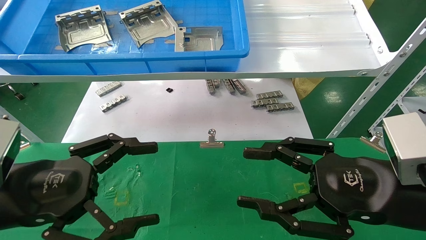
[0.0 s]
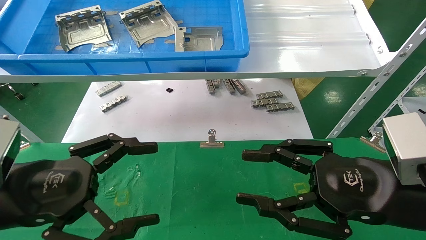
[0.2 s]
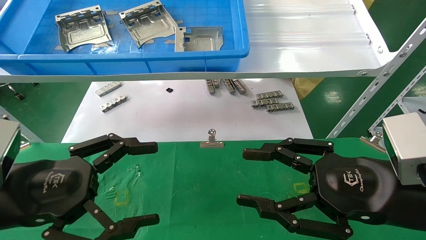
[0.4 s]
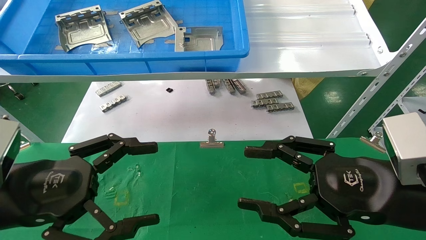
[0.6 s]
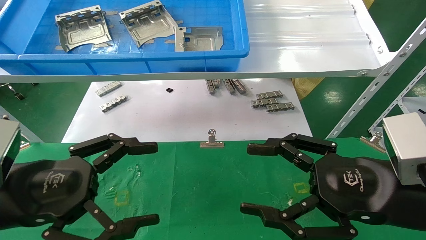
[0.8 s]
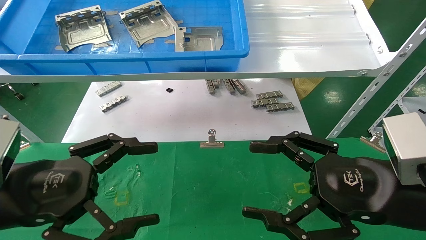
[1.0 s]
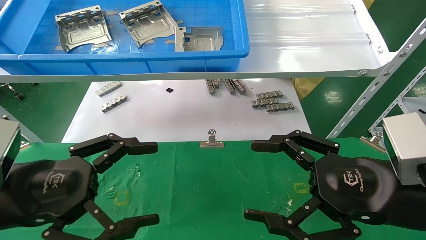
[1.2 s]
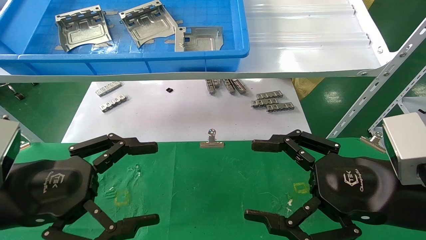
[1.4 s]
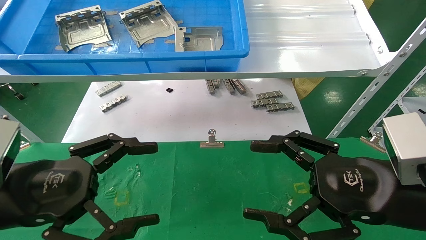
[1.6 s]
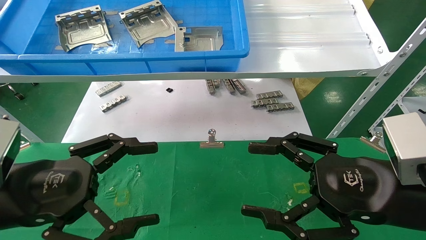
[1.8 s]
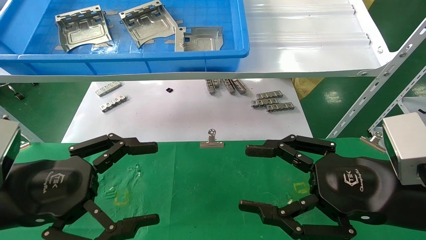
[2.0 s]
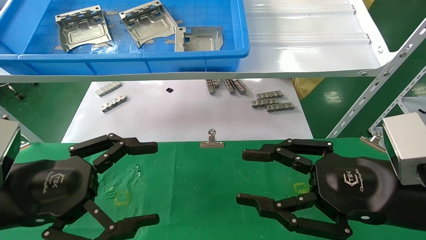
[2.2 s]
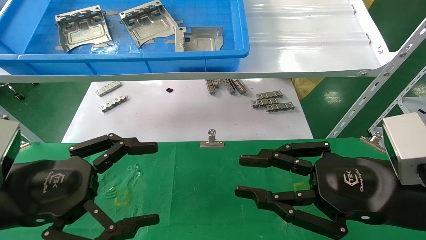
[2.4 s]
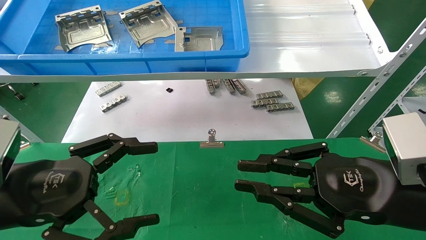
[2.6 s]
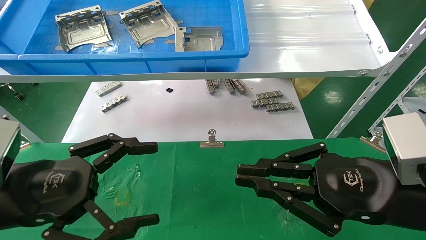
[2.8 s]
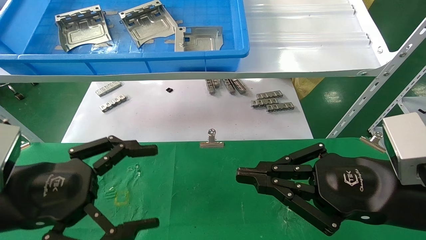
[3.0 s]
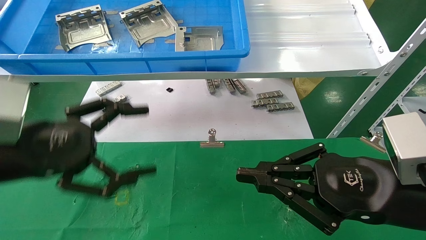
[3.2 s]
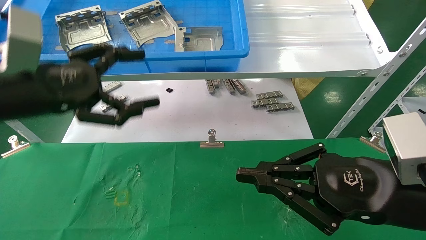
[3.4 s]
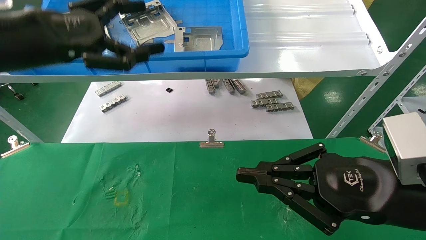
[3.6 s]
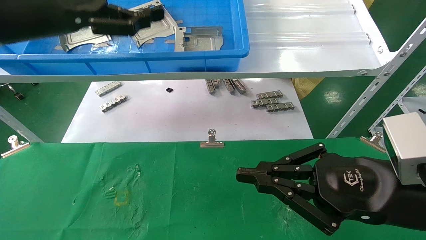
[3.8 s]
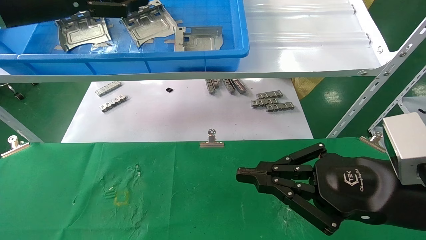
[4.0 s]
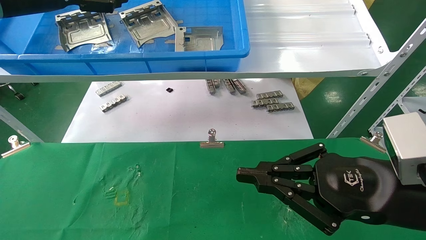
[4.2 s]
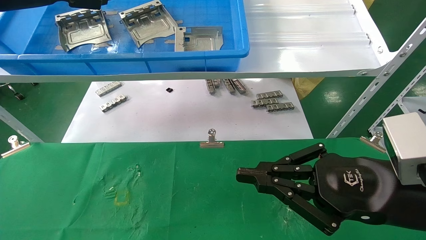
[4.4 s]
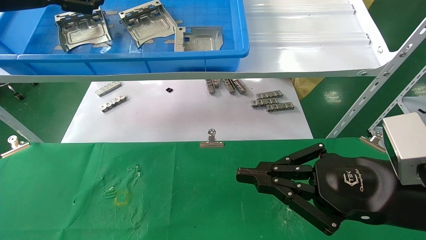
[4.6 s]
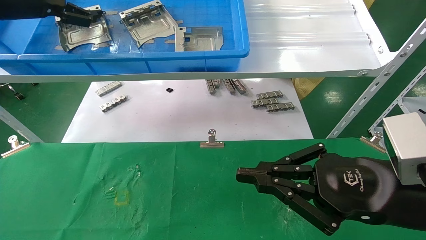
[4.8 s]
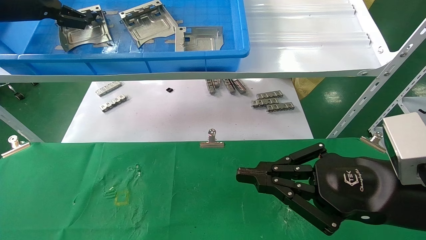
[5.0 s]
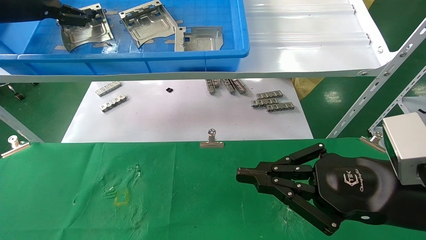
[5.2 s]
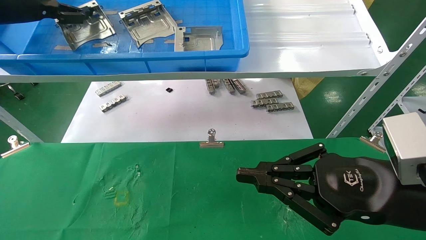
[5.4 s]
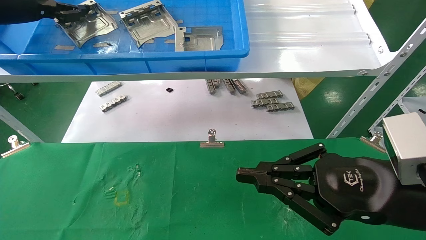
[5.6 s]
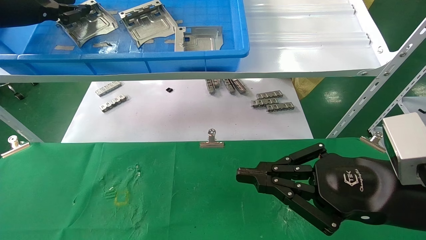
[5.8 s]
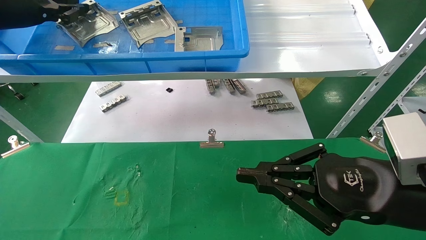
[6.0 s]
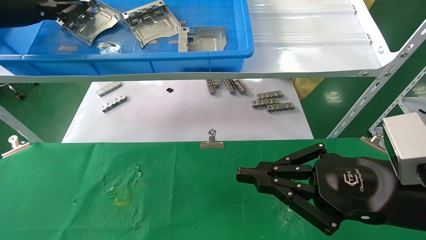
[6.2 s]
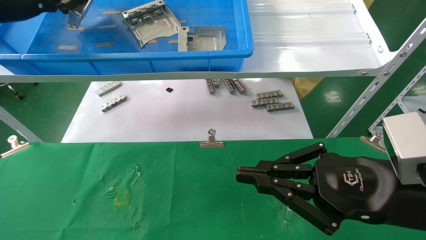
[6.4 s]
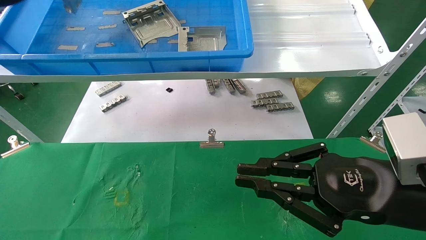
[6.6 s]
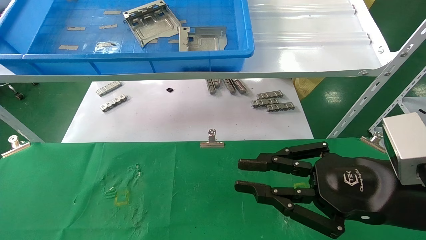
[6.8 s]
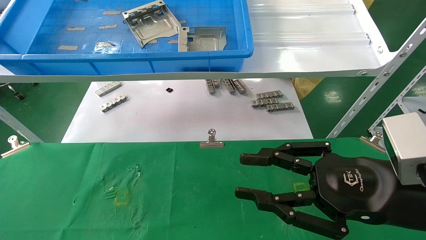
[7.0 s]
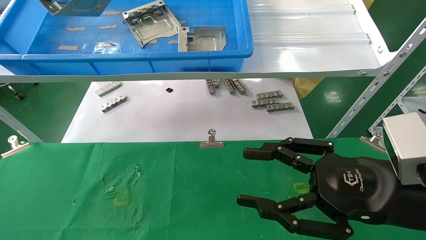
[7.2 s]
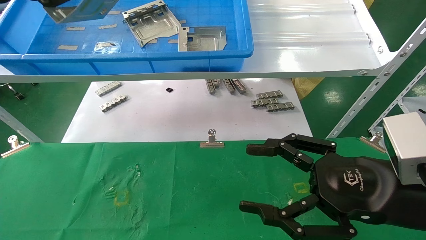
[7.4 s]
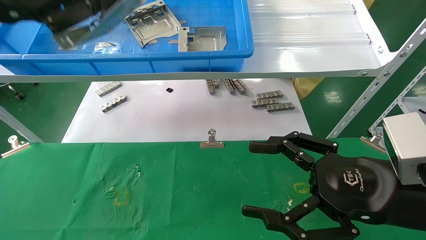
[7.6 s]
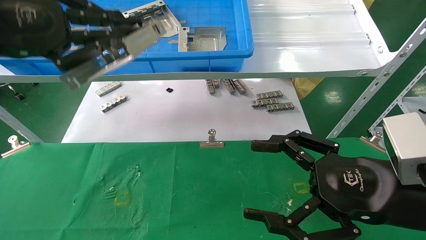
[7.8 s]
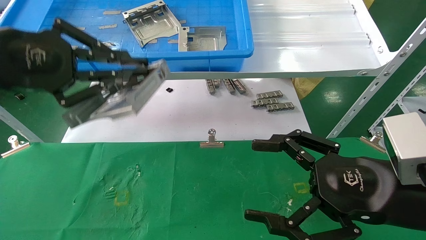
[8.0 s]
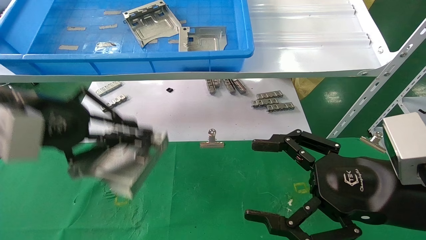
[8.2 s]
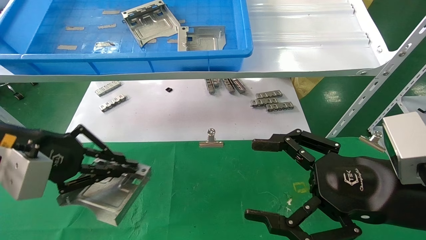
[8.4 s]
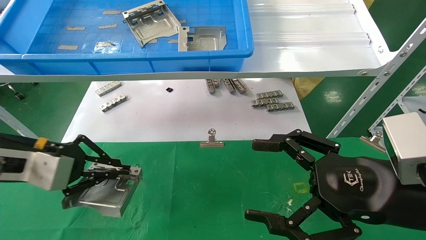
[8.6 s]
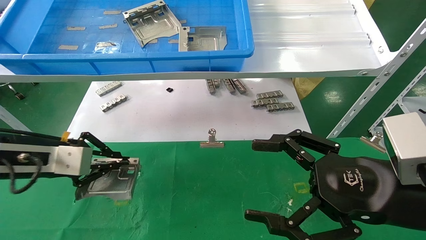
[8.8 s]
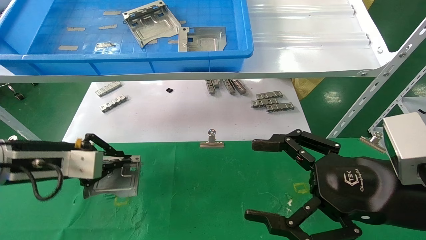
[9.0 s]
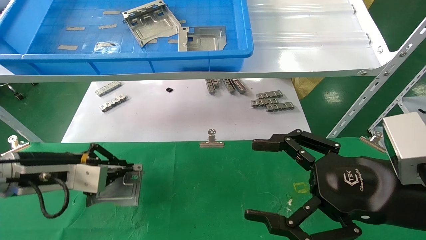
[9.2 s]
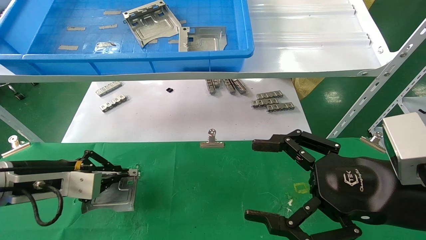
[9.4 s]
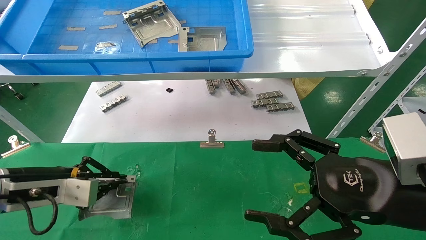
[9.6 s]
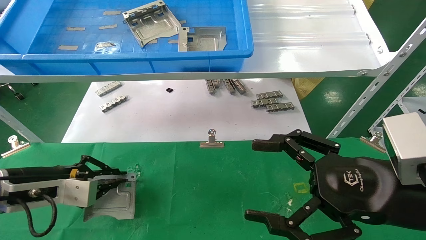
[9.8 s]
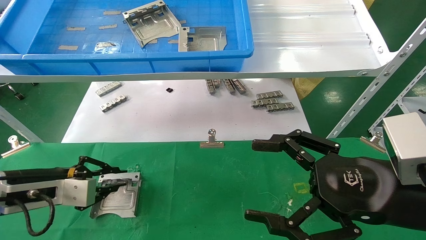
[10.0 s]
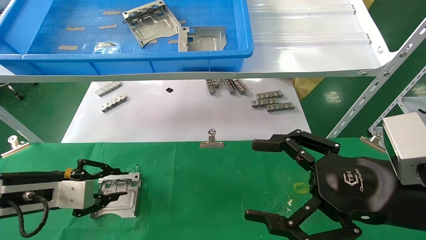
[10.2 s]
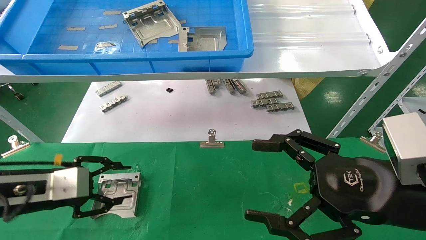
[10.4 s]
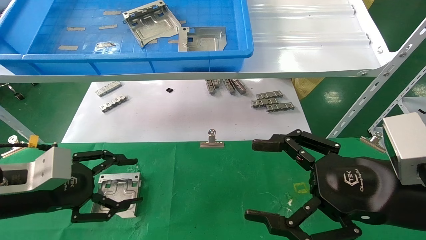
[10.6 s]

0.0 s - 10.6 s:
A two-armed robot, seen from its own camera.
Task of the whole recording: use the mechanical arm to pick up the parts and place them on the table.
Step, 3.2 s - 6.2 s: Pick up the hard drive bracket from the feeding area.
Step, 6.4 s - 10.4 s: Place the hard drive bracket into the box.
0.0 s - 1.6 s: The right gripper opens its fingers.
1.6 s - 3.0 s: The right gripper closes its fingers.
3.0 s - 4.6 s: The left gripper travels upward and forward by about 30 cm.
4.6 s - 6.0 s: The left gripper closes its fingers.
6.0 s - 7.6 s: The right gripper opens up. The left gripper heads backward and to the right, covering roughly 15 cm.
7.6 s - 9.0 s: The left gripper heads downward, covering approximately 25 cm.
9.0 s - 10.6 s: The left gripper changes place by approximately 5 cm, and opens its fingers.

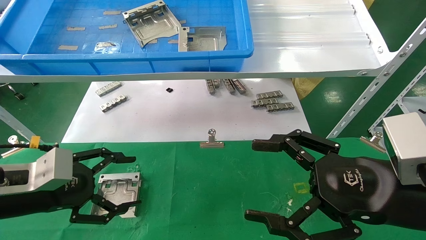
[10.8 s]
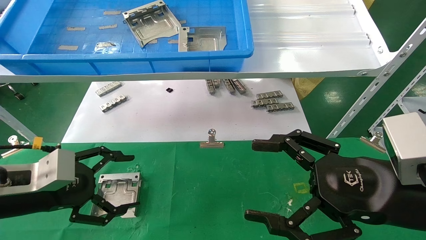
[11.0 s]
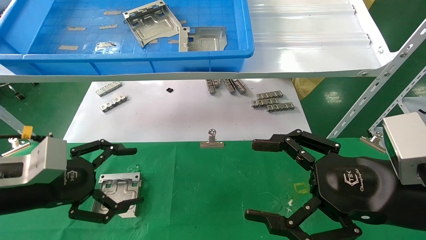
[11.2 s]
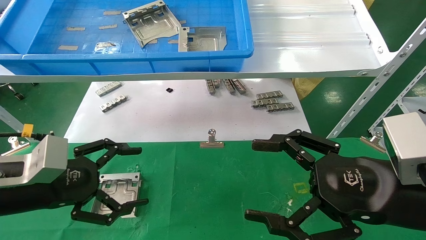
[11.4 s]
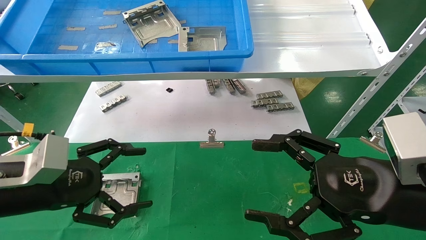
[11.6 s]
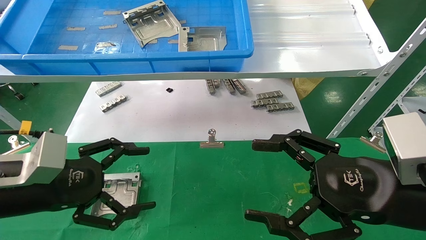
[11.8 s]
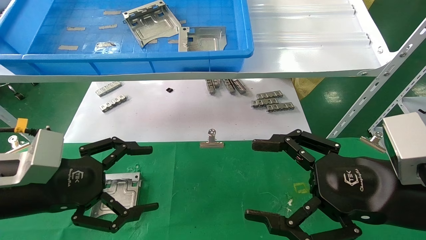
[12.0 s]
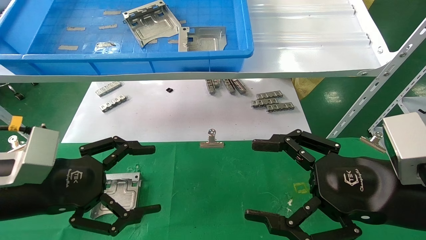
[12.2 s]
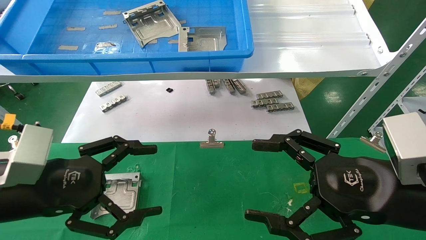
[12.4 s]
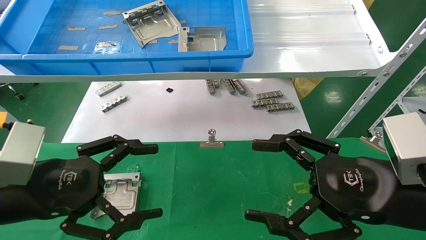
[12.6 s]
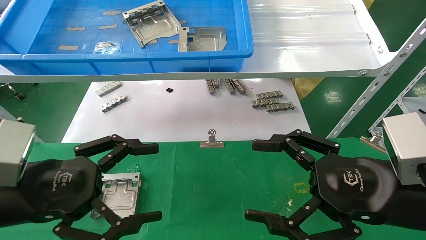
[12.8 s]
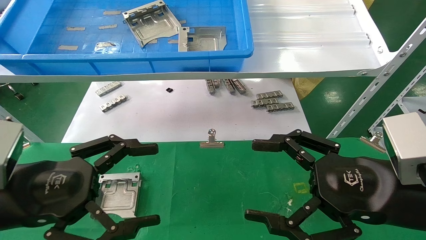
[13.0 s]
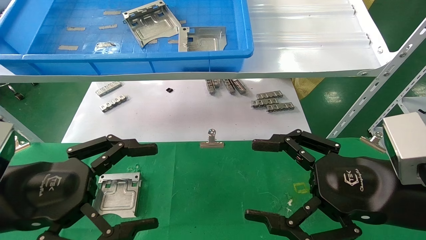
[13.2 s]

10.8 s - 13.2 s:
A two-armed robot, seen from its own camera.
Task of the whole recording: use the mechanical arm to pick up the parts and place them on the table.
10.8 s - 12.0 s: There are only small adjustments of the grippers.
12.0 s - 13.2 s: There are only small adjustments of the grippers.

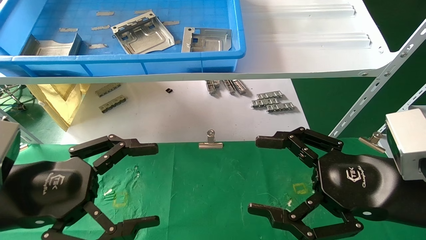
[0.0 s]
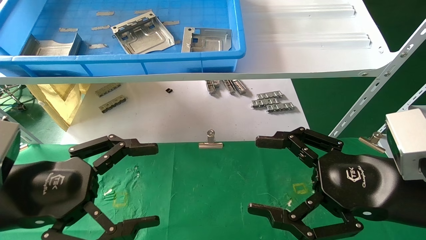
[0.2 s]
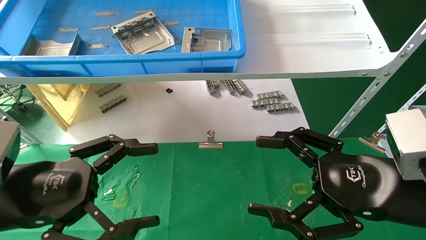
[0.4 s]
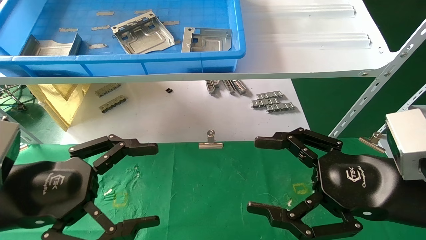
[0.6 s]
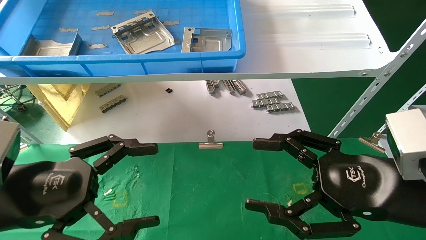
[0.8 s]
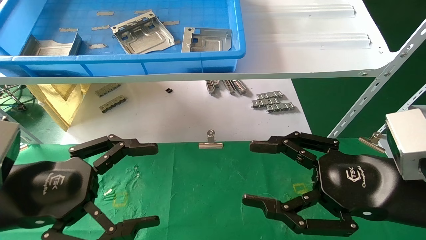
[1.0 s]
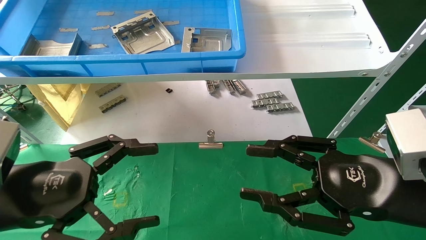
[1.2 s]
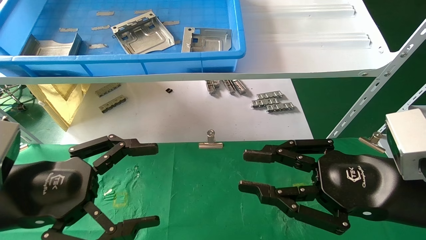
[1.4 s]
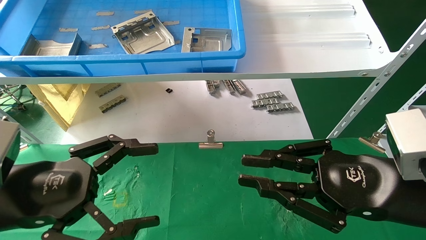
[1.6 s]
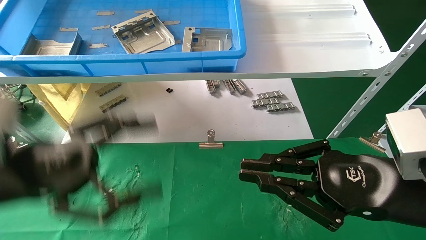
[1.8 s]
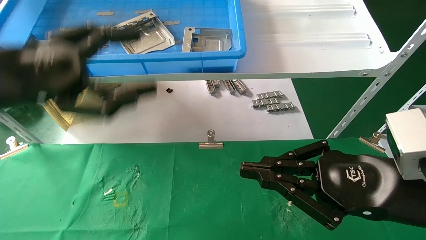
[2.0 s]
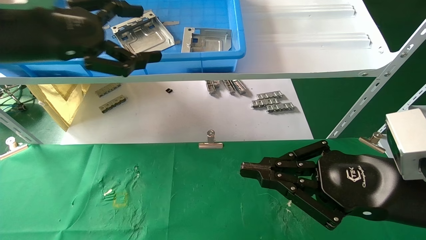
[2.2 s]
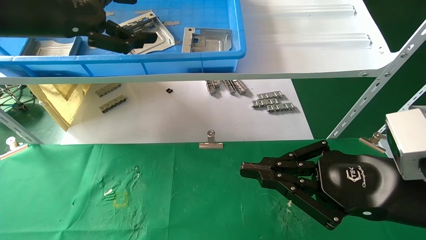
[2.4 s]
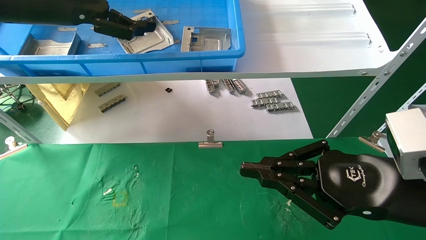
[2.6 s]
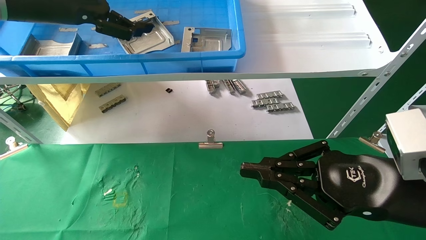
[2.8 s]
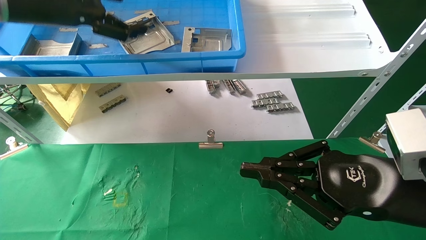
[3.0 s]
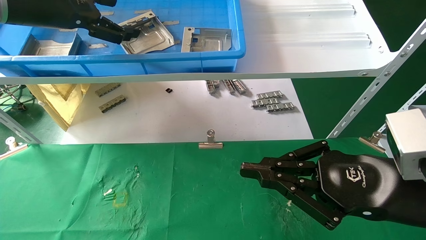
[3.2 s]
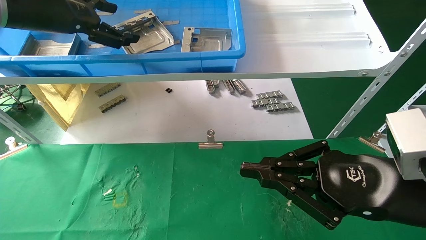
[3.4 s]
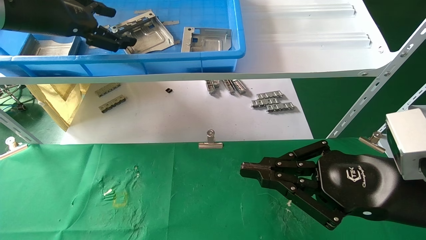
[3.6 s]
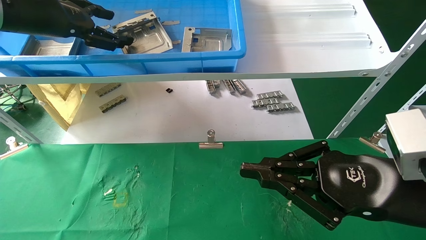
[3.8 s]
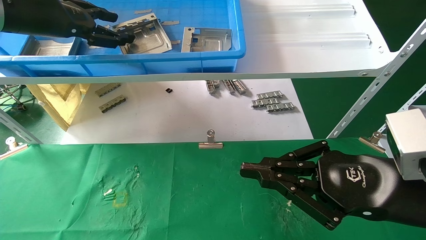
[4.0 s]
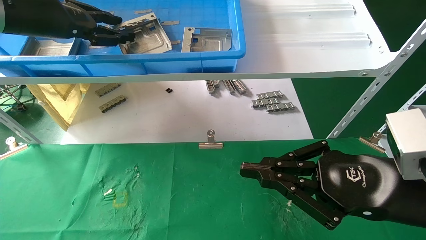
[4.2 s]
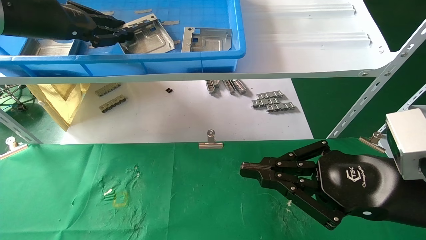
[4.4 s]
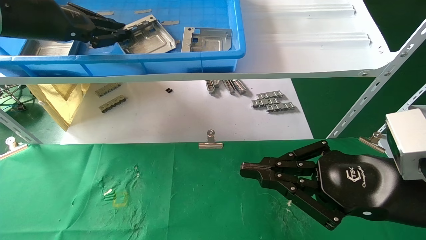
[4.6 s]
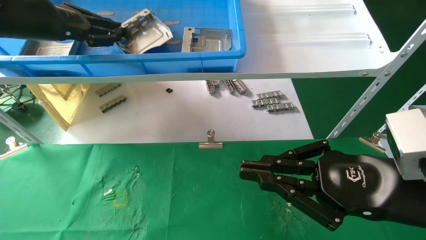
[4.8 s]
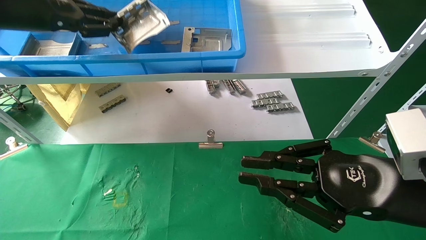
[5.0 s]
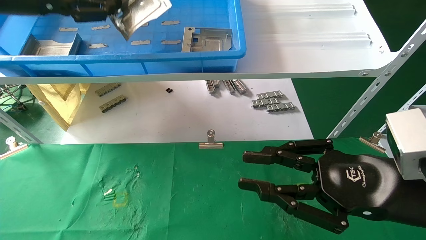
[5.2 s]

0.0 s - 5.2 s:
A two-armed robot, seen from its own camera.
Task of the whole recording: use the mechanical arm to pick up the parts and place them on the table.
Step, 2.2 s - 4.4 s: Pick up the hard drive bracket from the feeding area.
0.0 s - 1.8 s: The right gripper closes up; the left gripper is displaced upward by roughly 5 cm.
1.8 s - 3.4 s: The left gripper shifts some 25 cm upward and forward.
3.4 s - 5.2 s: The left gripper closes up.
